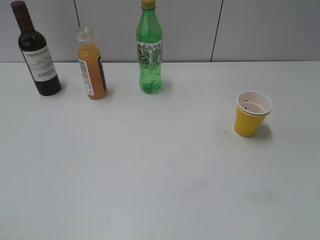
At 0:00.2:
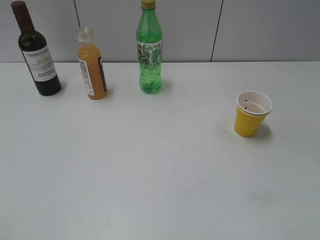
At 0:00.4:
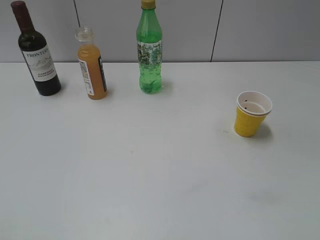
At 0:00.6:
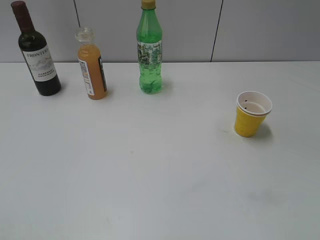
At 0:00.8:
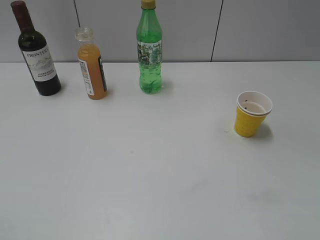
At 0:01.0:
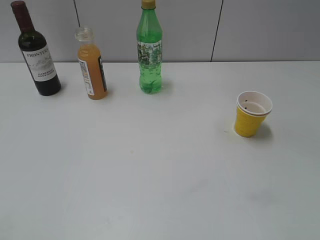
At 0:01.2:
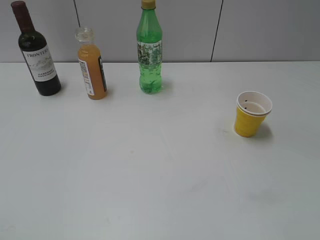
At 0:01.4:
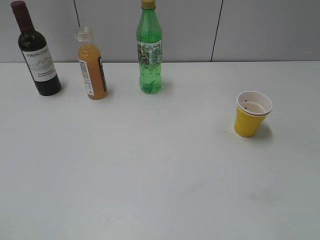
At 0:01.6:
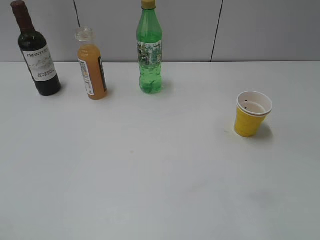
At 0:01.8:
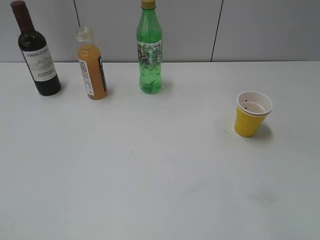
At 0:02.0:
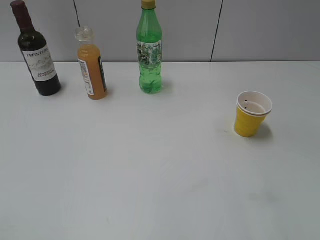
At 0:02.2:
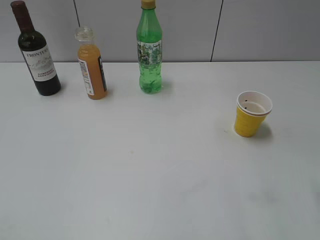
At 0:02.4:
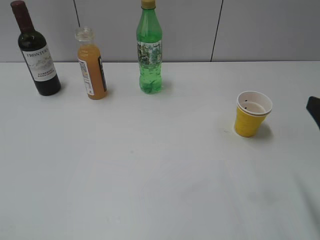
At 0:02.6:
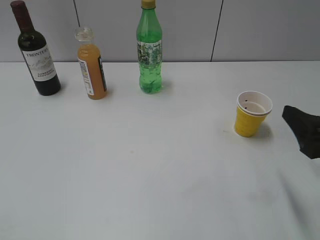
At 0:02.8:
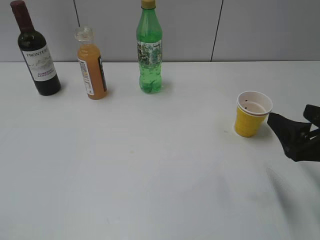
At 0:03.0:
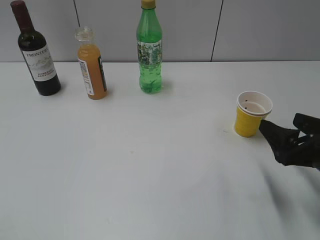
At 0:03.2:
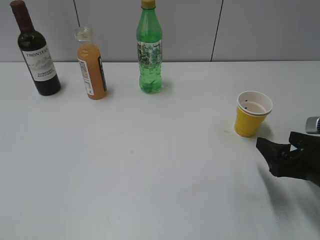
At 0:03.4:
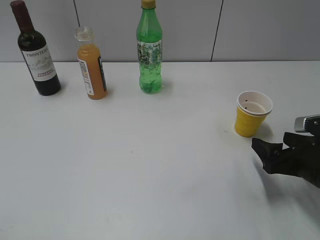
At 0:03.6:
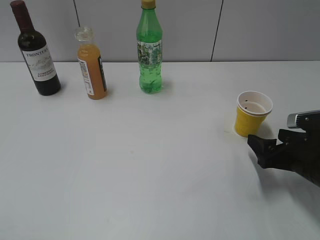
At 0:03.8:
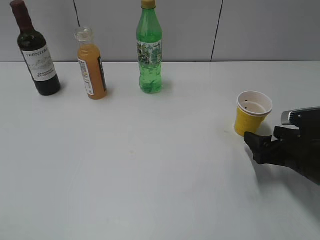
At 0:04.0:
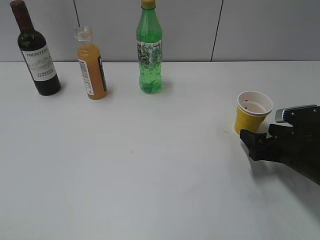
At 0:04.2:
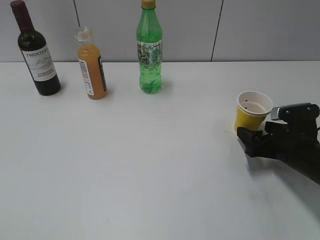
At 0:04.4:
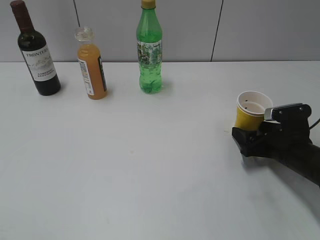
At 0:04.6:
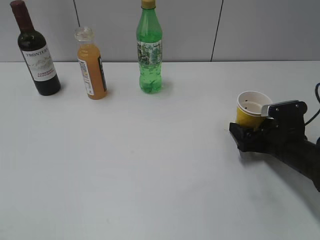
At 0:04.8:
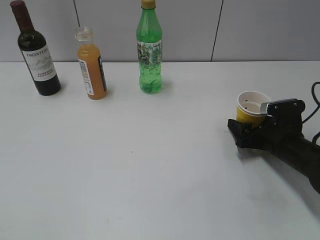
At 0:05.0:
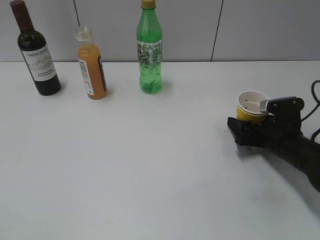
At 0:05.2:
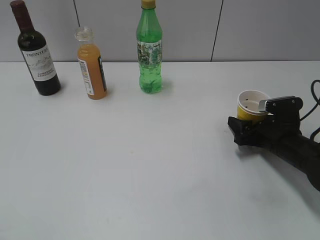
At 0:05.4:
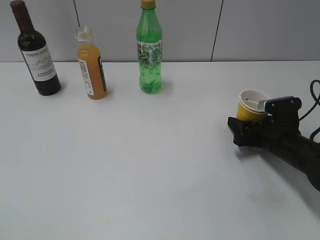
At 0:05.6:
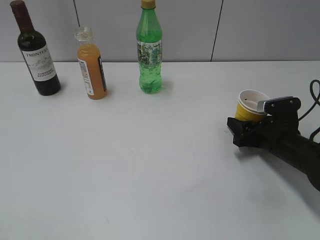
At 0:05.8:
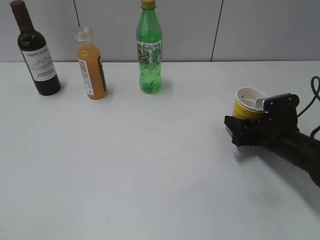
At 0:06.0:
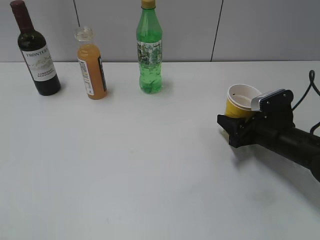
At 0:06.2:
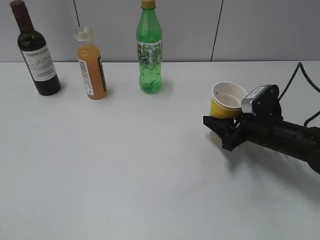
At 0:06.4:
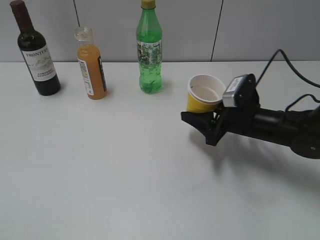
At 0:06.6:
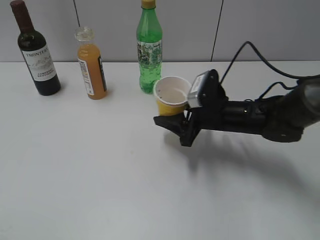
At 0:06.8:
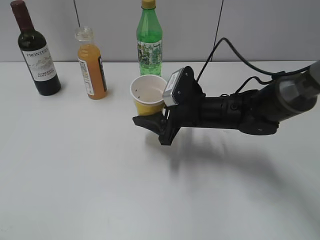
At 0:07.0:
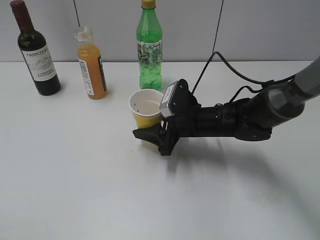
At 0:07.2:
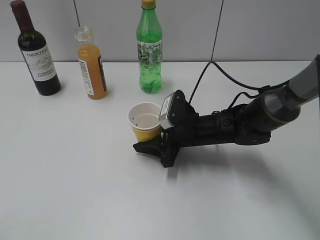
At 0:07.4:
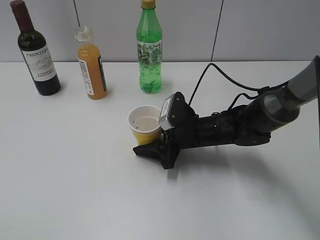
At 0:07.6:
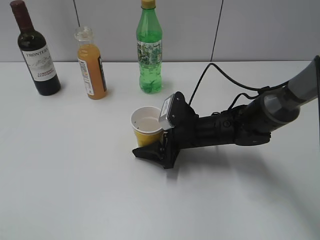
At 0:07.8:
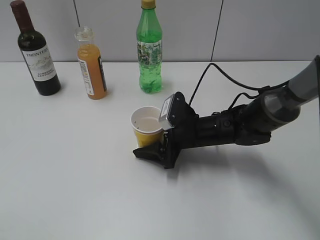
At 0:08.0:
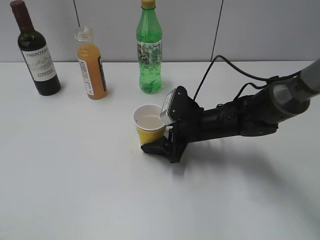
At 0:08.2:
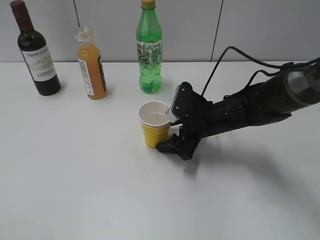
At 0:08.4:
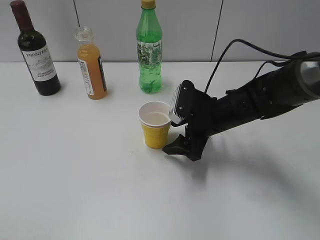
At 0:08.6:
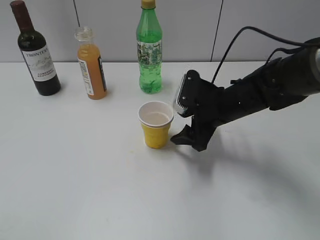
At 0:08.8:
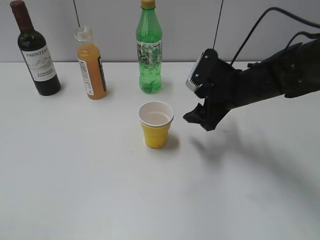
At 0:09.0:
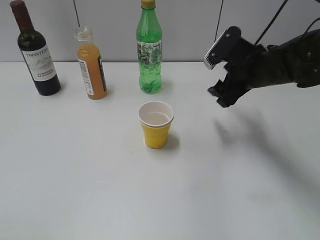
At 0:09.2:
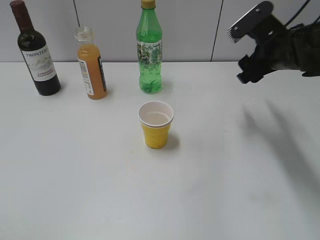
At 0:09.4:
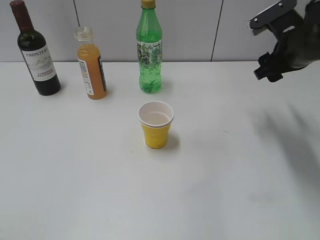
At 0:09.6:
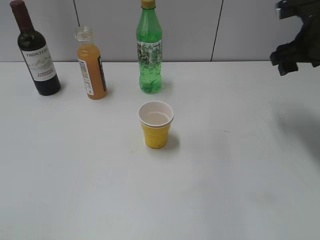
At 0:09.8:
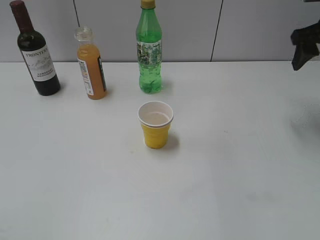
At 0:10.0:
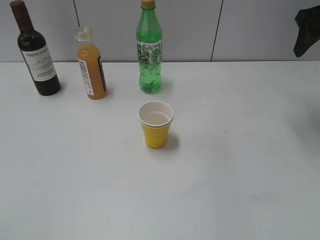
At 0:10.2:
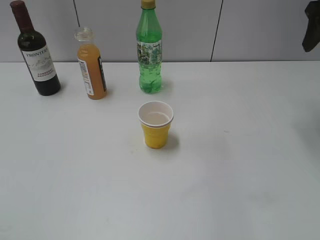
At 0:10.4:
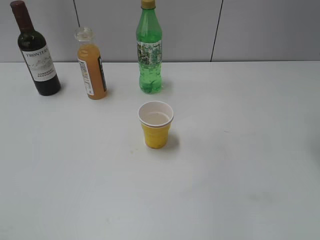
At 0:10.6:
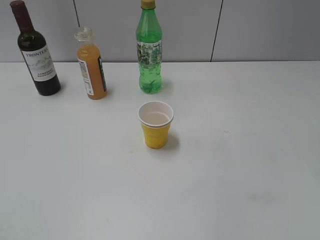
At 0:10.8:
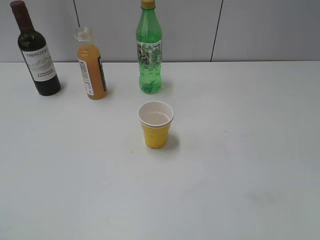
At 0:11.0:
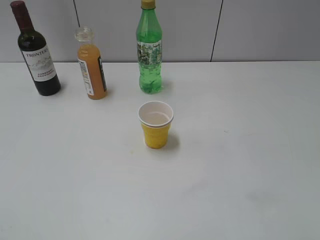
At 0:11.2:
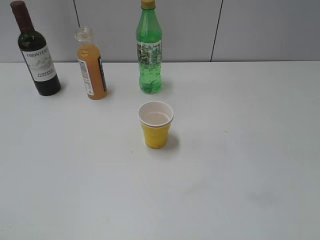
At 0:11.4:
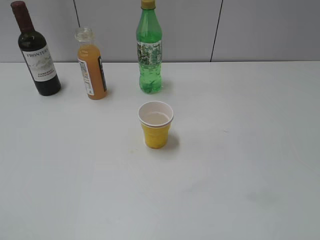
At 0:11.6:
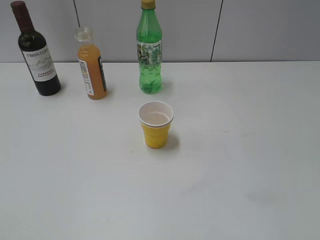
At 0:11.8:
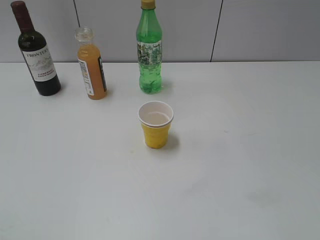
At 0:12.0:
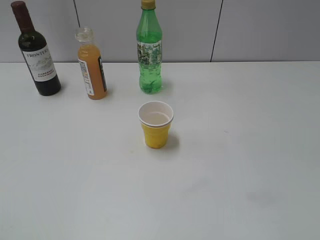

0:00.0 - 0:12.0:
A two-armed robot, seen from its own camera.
Step, 0:02.4 - 0:05.2: Grasp the yellow paper cup with right gripper.
Step, 0:05.6 - 0:08.4: Place the yellow paper cup on the table with right gripper.
0:01.6 - 0:03.0: The right gripper is displaced downward and forward by roughly 20 cm, and opens.
0:03.0 - 0:04.4: The right gripper heads downward and forward, covering roughly 15 cm.
0:04.4 - 0:06.0: The right gripper closes.
0:06.0 - 0:07.6: The right gripper heads to the left, covering approximately 15 cm, and opens its fingers.
0:07.6 - 0:09.0: The right gripper moves upward and to the right, about 15 cm.
0:09.0 - 0:10.4: The right gripper moves upward and to the right, about 20 cm.

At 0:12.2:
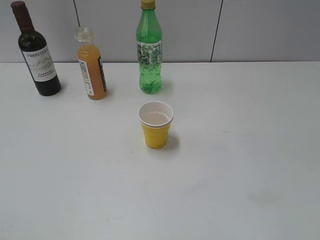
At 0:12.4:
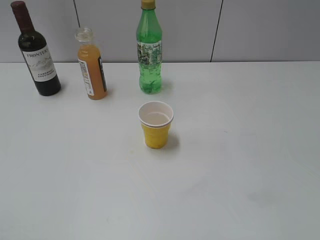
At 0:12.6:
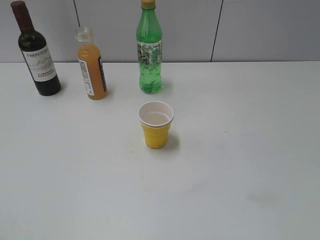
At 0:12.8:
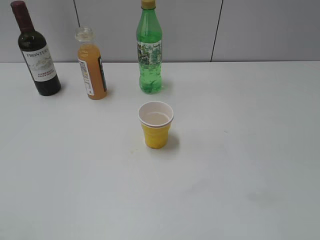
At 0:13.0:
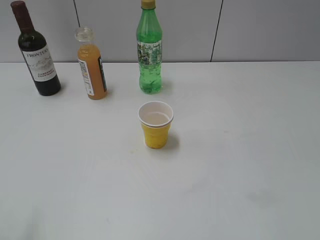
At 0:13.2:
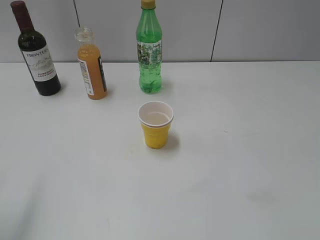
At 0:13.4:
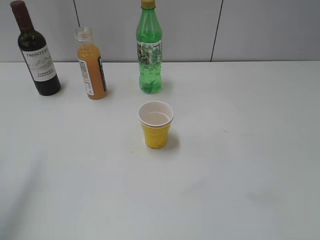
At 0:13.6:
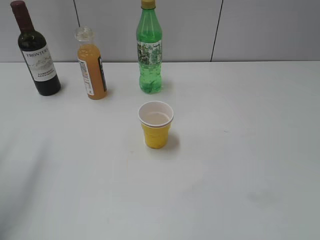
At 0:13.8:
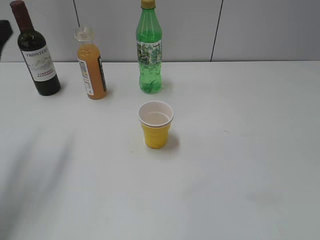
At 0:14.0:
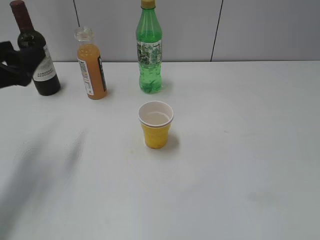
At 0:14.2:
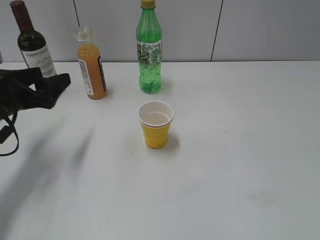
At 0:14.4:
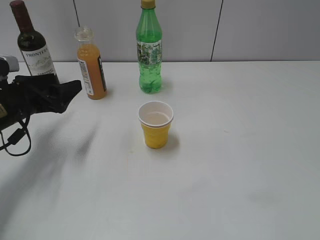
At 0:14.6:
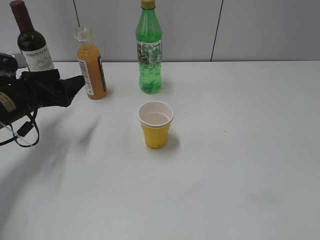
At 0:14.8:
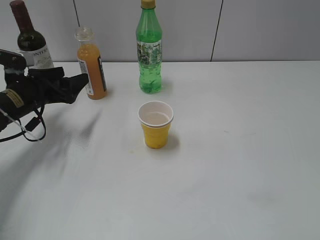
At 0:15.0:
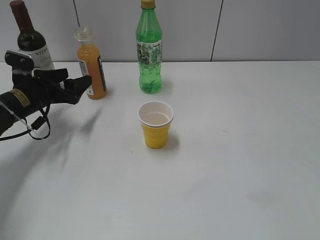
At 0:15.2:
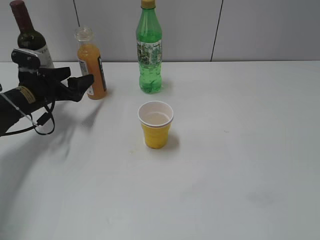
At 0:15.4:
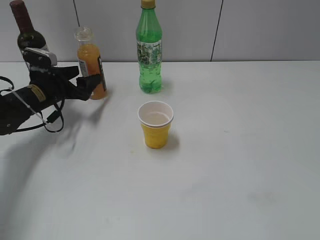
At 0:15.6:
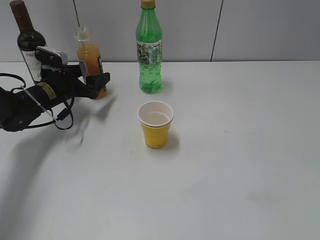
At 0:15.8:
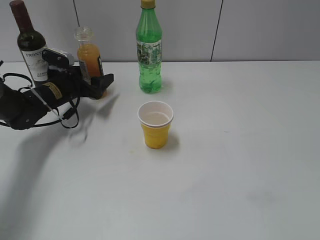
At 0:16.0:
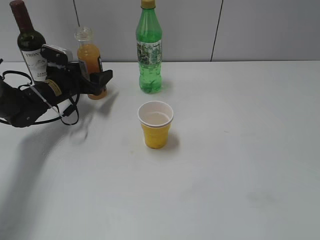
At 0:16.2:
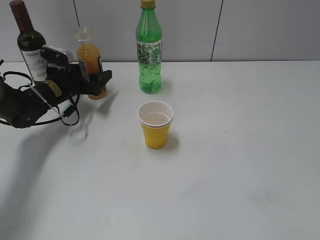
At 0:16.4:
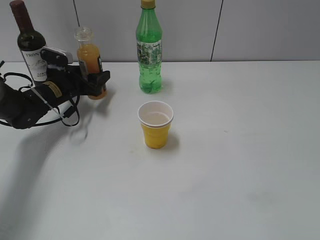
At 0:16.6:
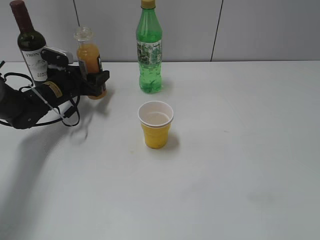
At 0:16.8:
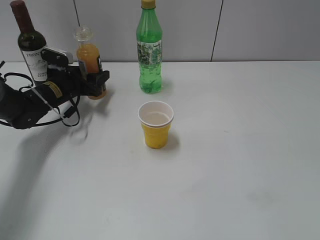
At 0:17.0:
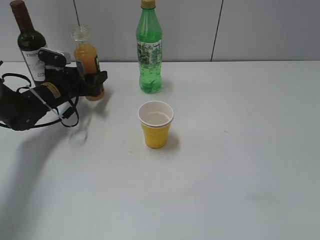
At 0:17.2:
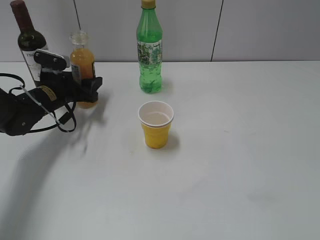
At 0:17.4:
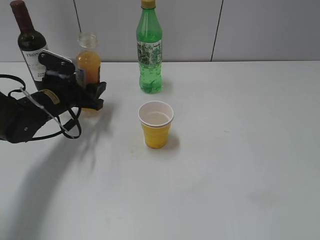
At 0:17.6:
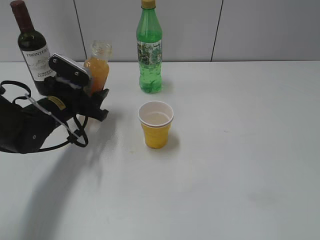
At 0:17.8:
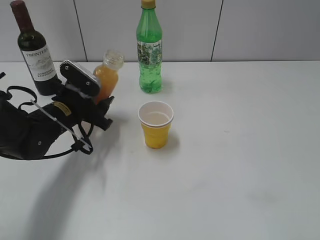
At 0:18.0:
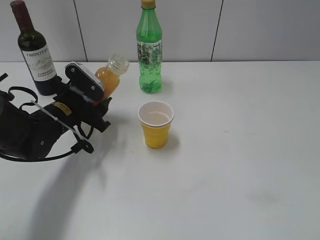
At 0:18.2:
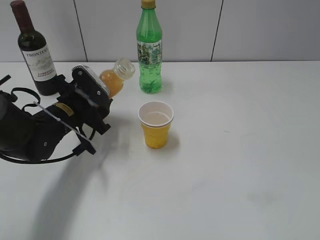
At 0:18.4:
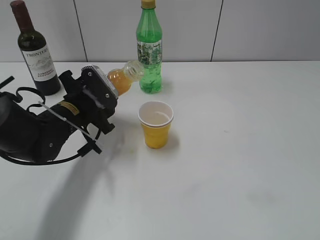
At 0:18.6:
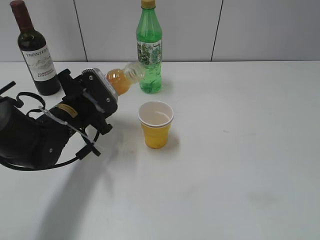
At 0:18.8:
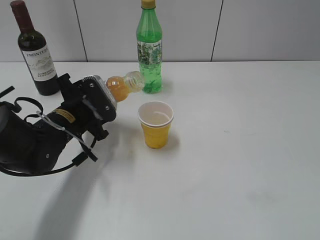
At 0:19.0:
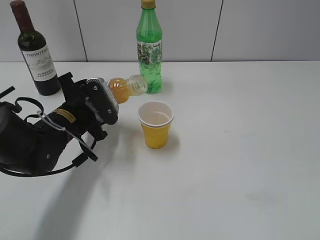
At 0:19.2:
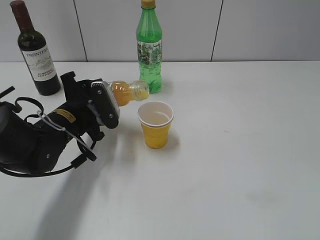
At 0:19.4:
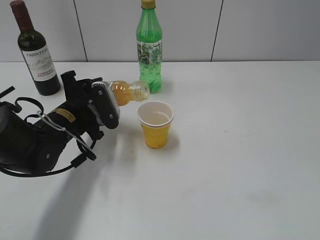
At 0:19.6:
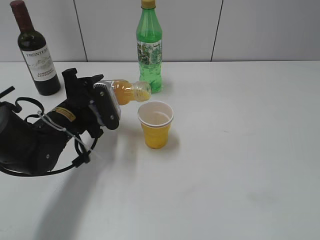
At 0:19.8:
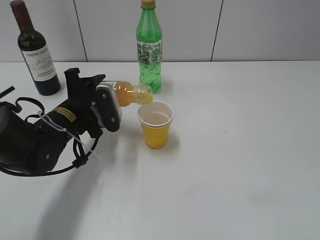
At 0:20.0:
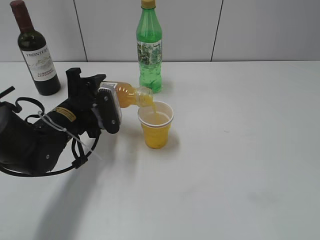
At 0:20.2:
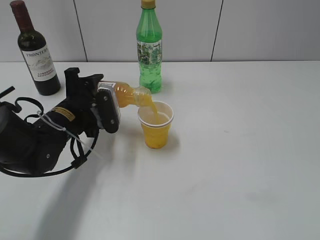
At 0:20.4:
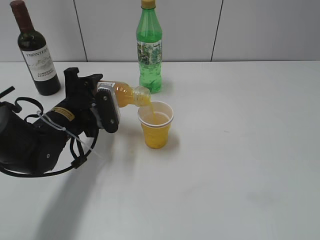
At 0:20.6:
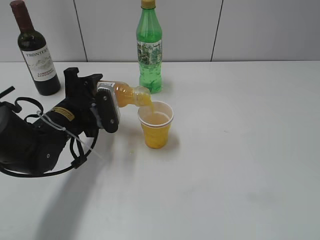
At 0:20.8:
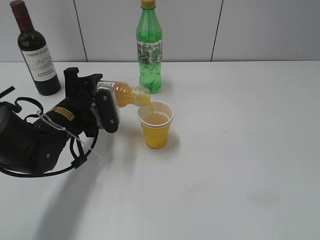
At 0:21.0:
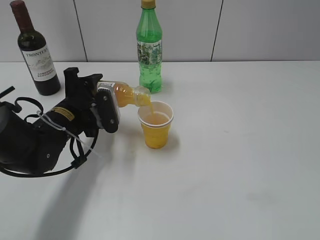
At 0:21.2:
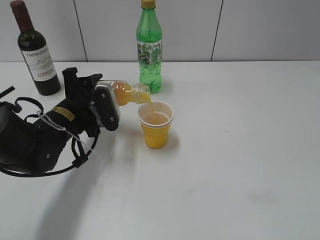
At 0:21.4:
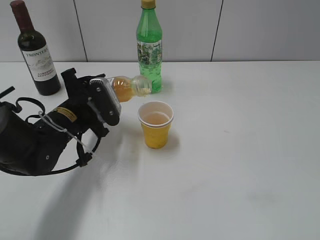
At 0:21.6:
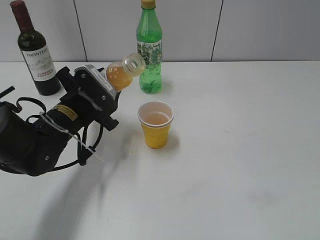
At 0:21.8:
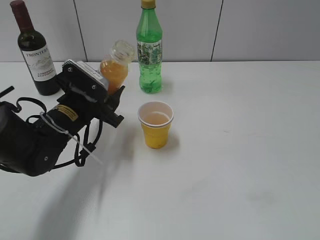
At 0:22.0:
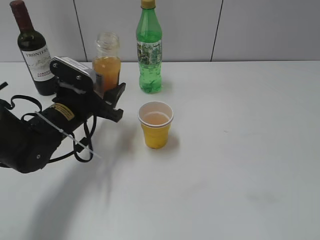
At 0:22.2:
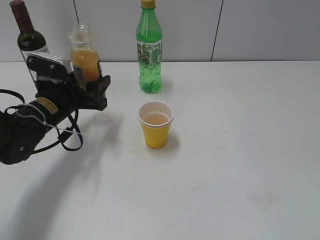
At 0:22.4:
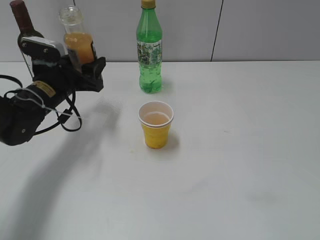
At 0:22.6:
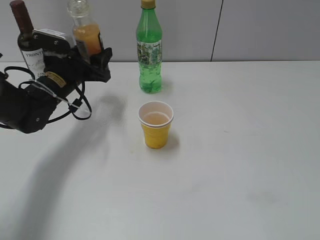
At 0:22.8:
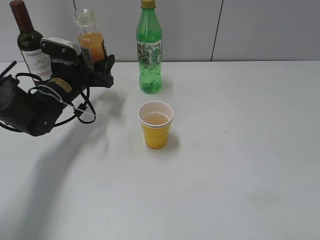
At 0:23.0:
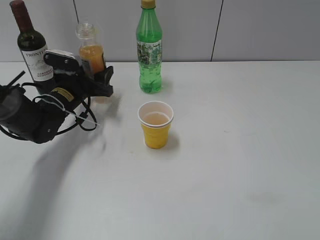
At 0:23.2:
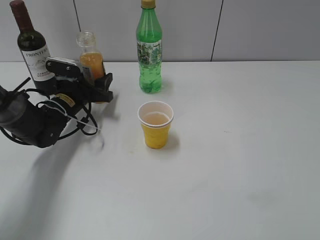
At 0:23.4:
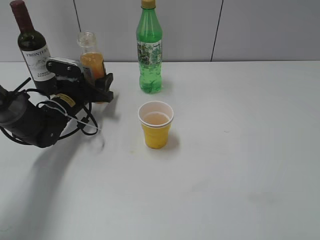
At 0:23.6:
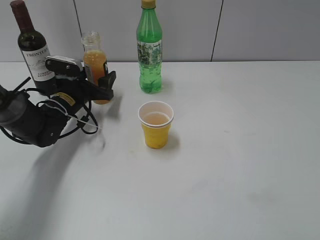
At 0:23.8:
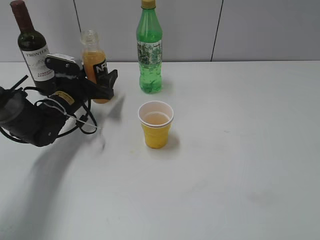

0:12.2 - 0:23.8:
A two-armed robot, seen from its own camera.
Step, 0:12.2 - 0:16.6: Grasp the bottle with orange juice with left gripper.
Step, 0:16.8 - 0:21.6: Pour the orange juice from bottle to cup with left gripper.
0:12.2 - 0:13.6: The left gripper heads forward, covering roughly 20 cm.
0:13.6 - 0:15.0: The left gripper travels downward and forward by some 25 cm, and opens.
0:15.0 - 0:16.6: The left gripper is displaced forward by roughly 5 cm, and closes.
0:16.6 - 0:18.0: The left gripper is displaced backward and to the right by roughly 10 cm.
0:19.4 - 0:21.0: The grippers make only small movements.
0:21.0 - 0:22.4: The left gripper shifts by approximately 5 cm.
0:22.4 - 0:23.8: The left gripper travels downward and forward by some 10 cm, and opens up.
